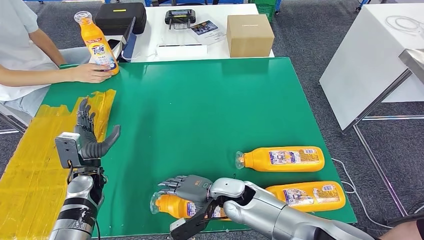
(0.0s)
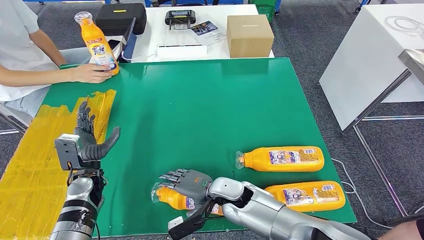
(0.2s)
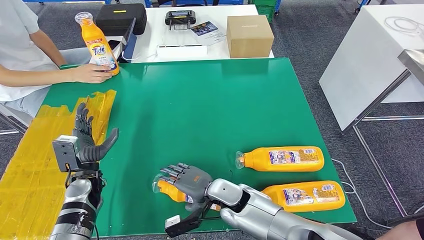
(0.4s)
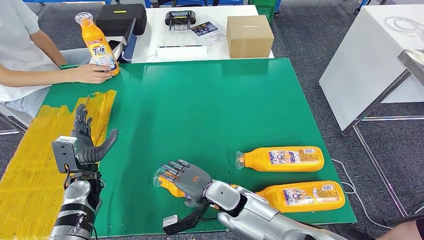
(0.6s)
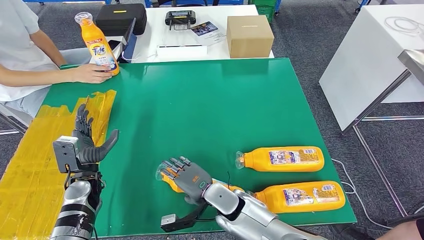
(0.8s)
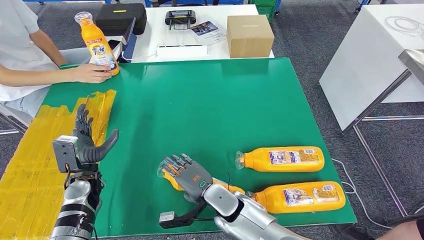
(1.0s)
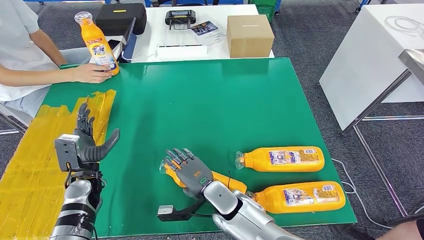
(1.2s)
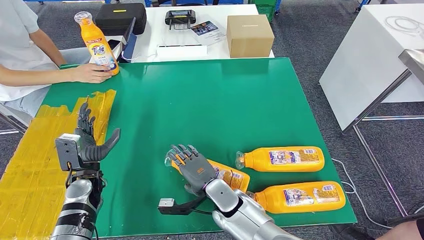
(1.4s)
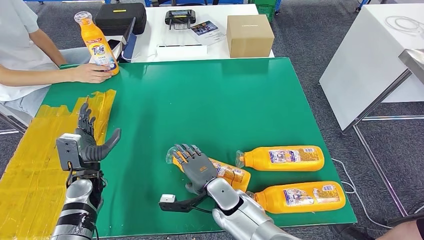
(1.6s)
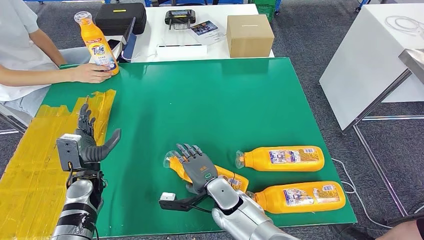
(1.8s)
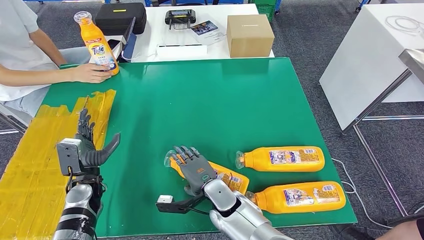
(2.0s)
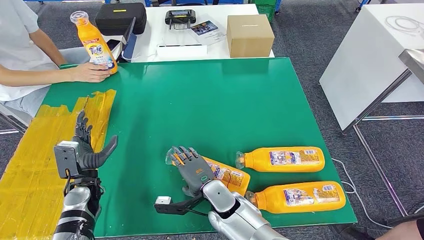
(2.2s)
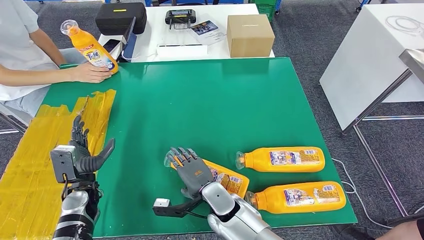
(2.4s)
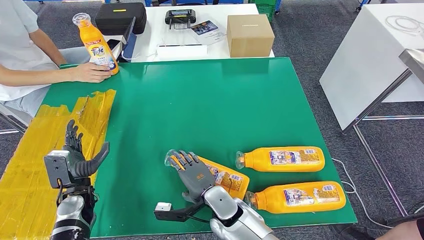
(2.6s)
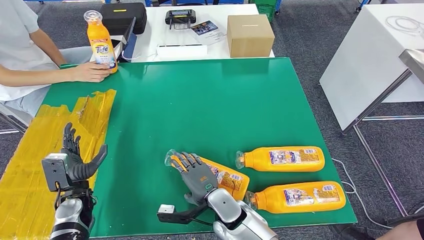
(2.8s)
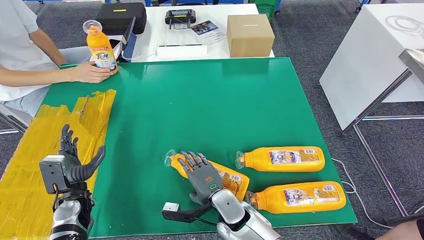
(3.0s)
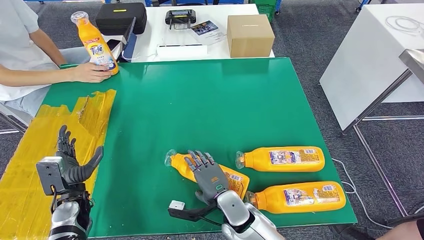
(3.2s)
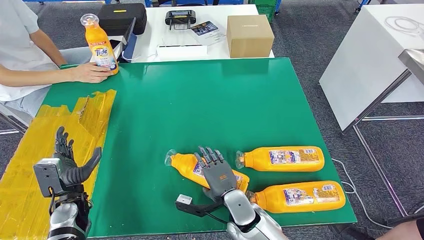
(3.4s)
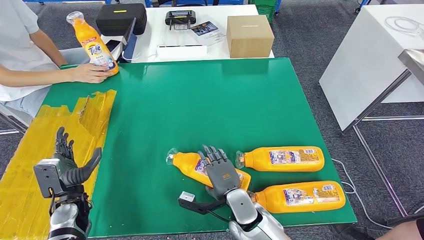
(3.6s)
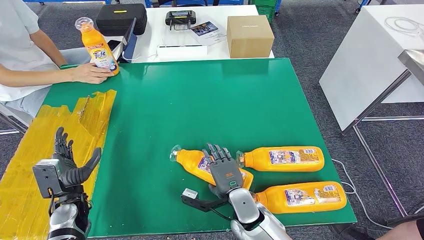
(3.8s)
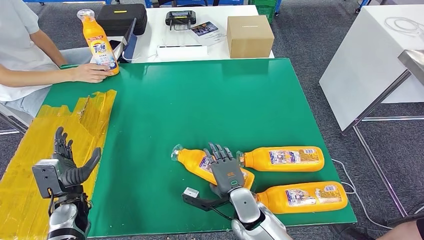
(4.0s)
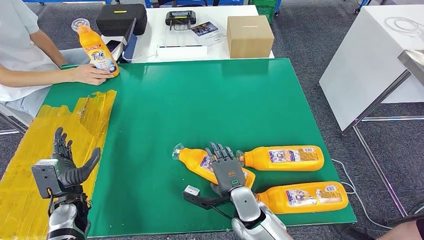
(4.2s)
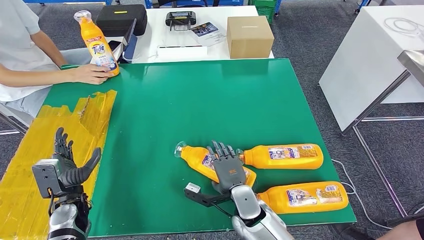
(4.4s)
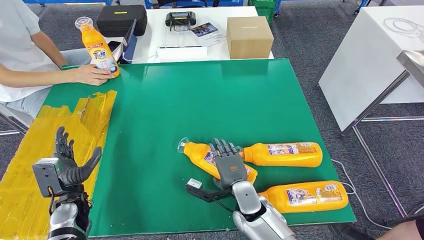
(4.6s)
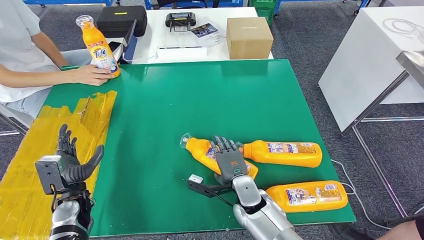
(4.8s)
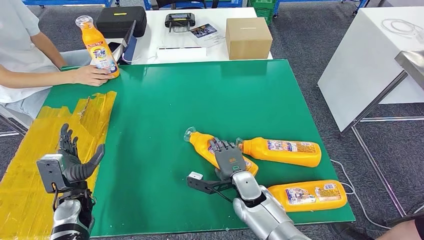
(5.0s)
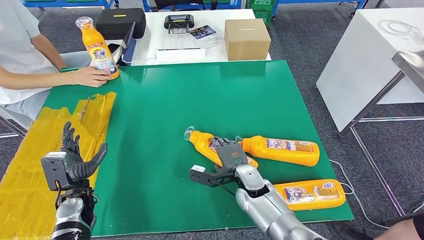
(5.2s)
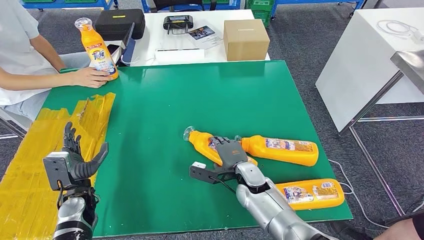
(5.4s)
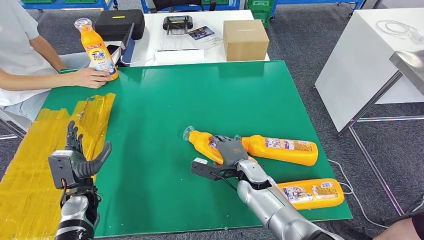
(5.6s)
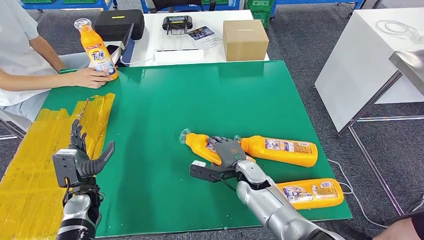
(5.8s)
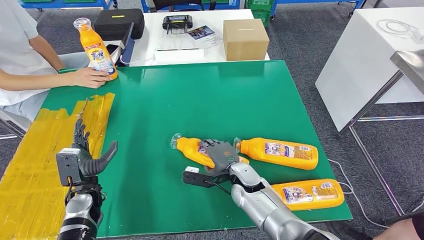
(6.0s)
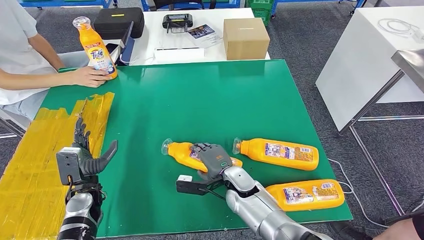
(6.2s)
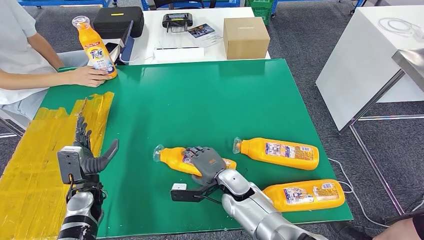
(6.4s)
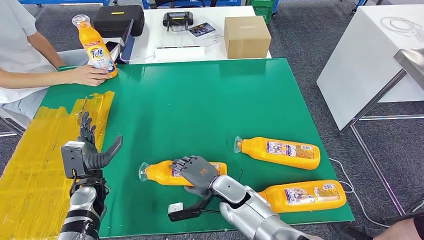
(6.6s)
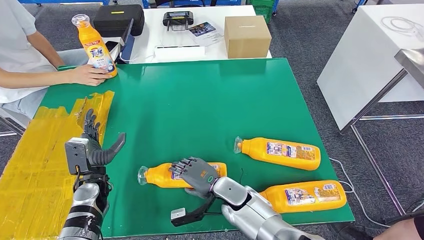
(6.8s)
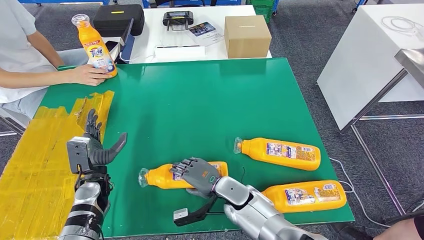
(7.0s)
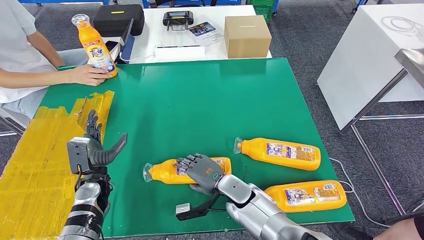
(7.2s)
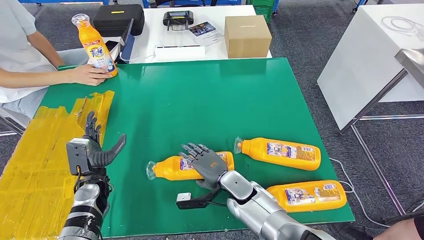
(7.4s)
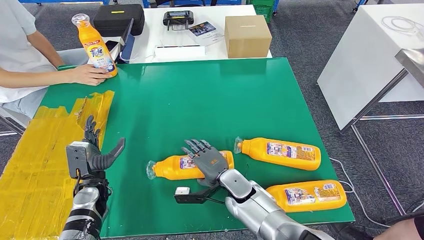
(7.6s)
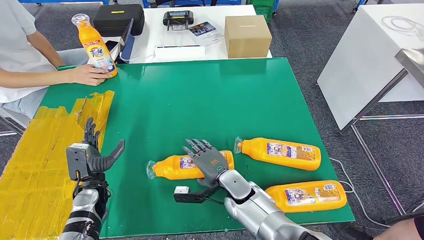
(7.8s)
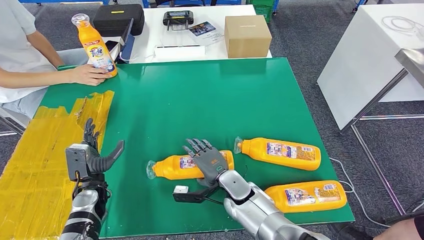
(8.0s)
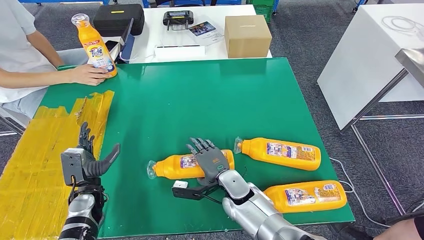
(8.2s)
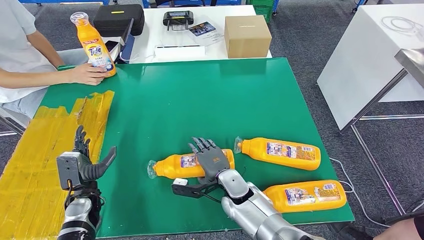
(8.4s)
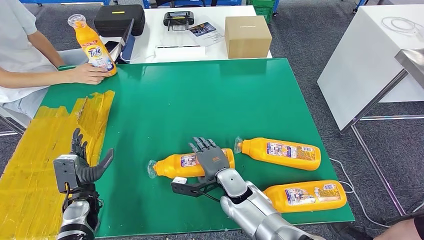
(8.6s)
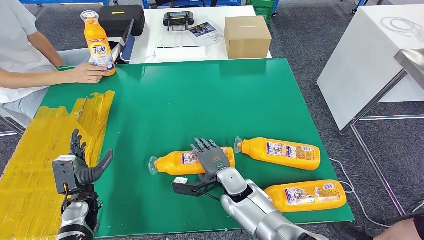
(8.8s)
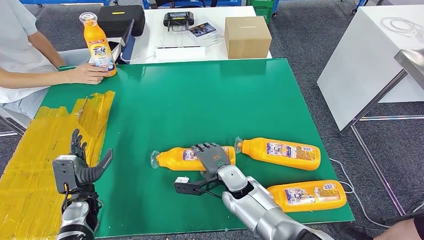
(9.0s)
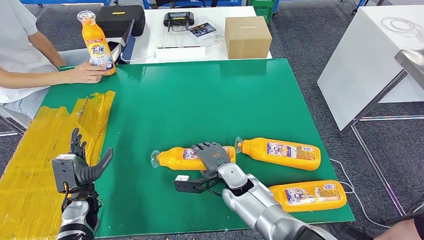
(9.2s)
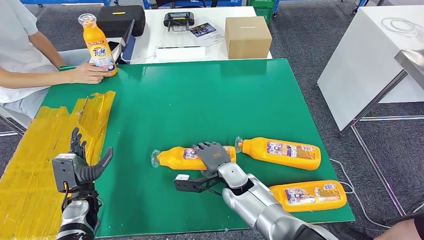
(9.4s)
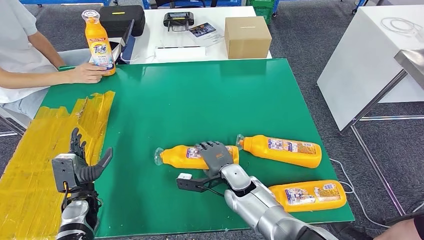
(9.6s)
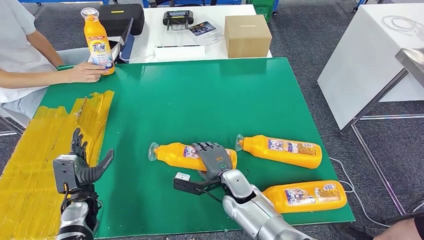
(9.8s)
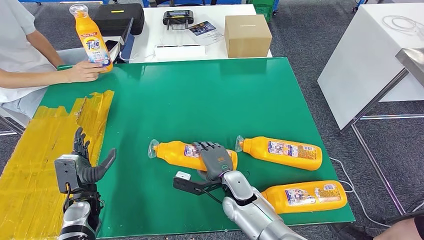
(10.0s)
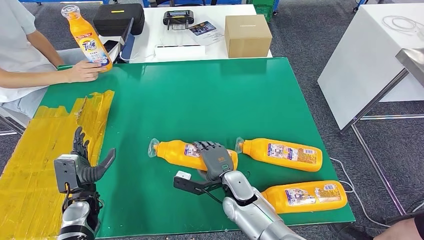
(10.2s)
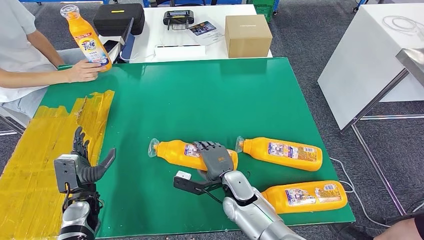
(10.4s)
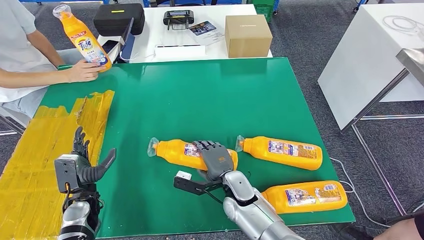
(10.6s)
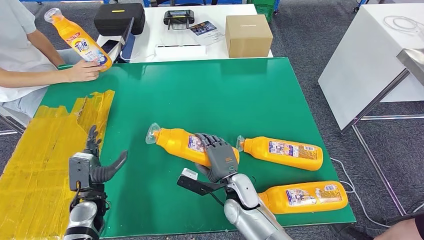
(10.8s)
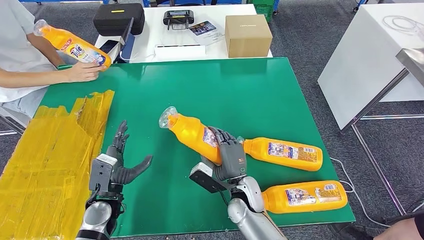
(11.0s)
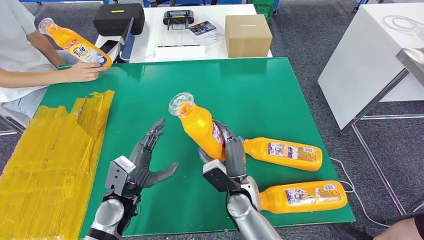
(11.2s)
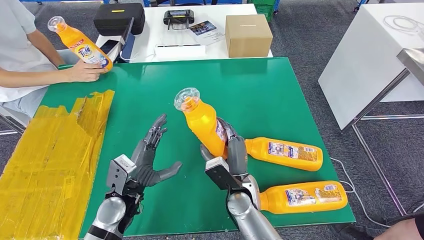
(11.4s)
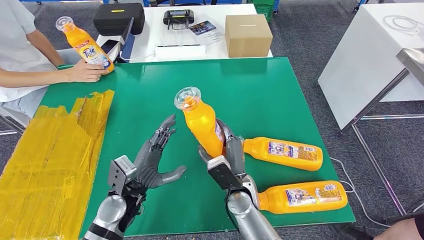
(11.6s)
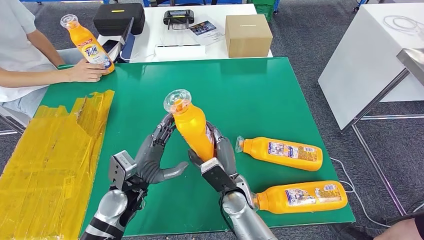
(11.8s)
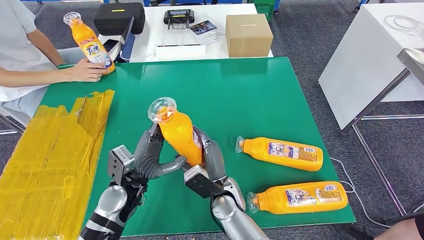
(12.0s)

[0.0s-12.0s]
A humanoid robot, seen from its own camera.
Step, 1.8s to 11.6s: Pick up the bottle from the table.
1.6s to 3.0s: The left hand moves about 5 cm.
3.0s to 4.4s: The right hand shifts about 5 cm to the right.
7.6s to 9.0s: The hands make only small movements.
10.4s to 12.0s: The left hand travels to the right and upward by approximately 15 cm.

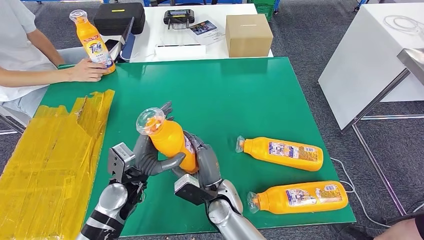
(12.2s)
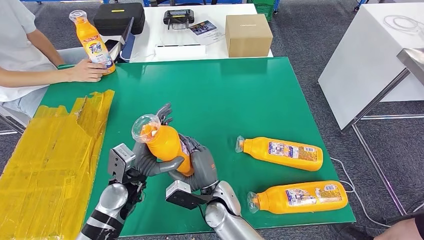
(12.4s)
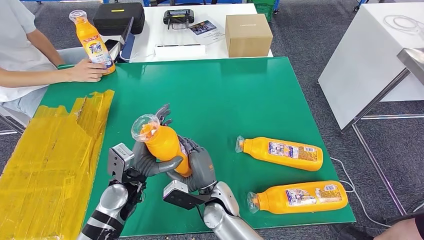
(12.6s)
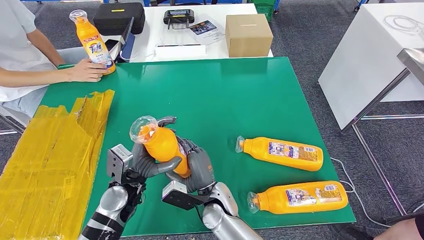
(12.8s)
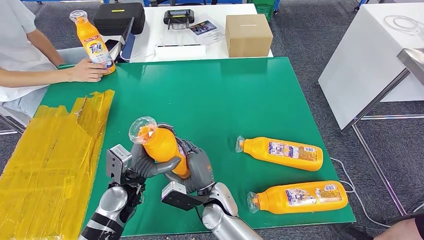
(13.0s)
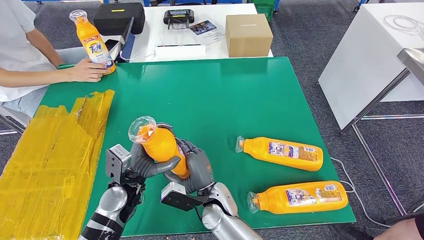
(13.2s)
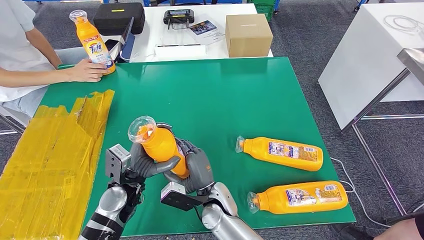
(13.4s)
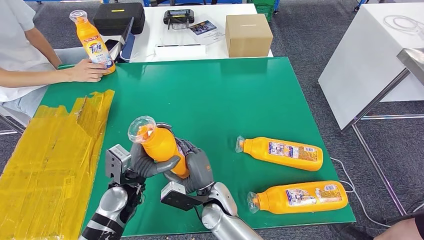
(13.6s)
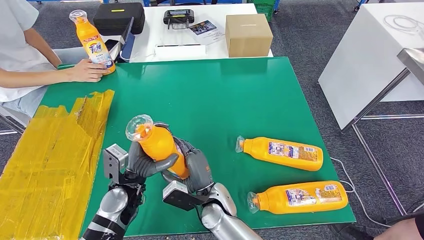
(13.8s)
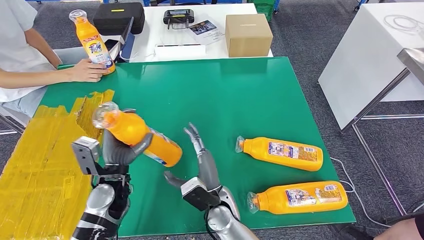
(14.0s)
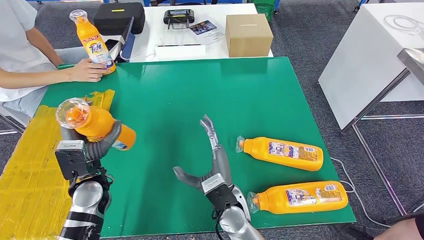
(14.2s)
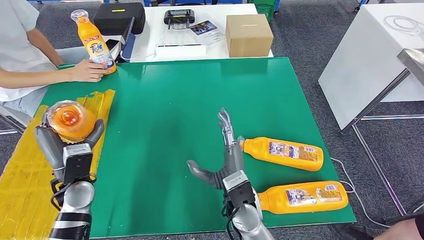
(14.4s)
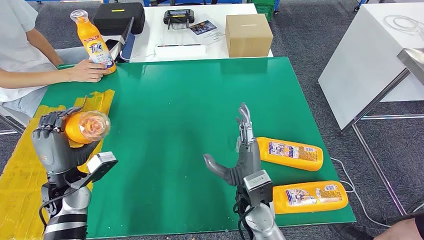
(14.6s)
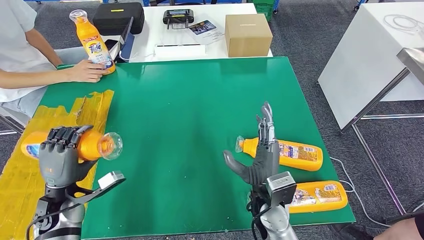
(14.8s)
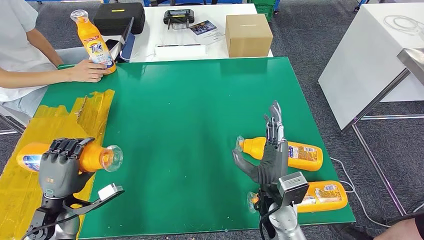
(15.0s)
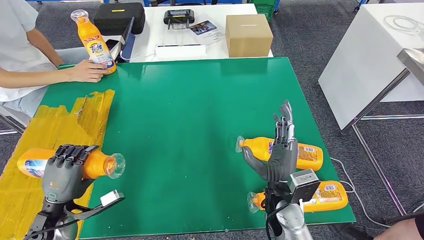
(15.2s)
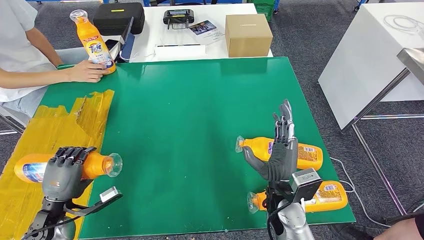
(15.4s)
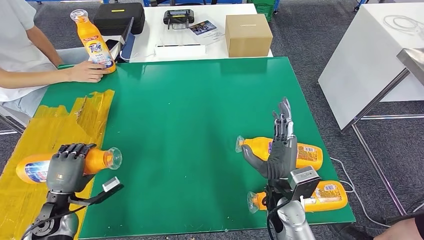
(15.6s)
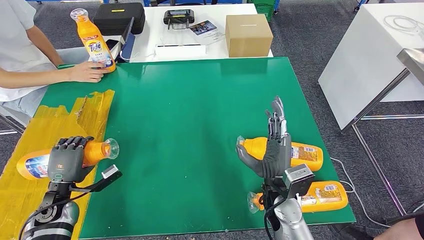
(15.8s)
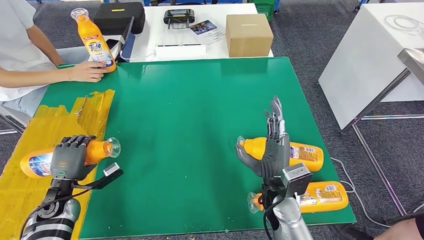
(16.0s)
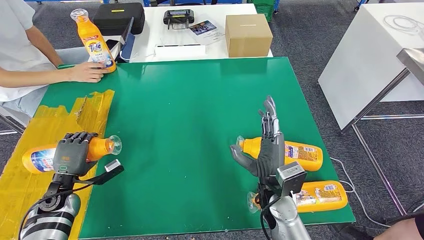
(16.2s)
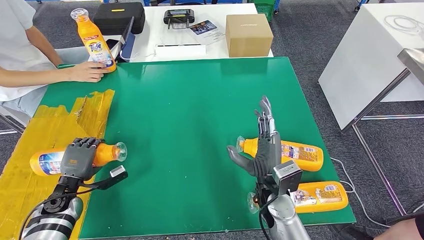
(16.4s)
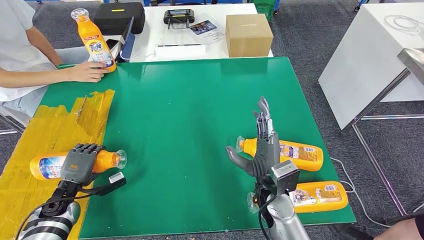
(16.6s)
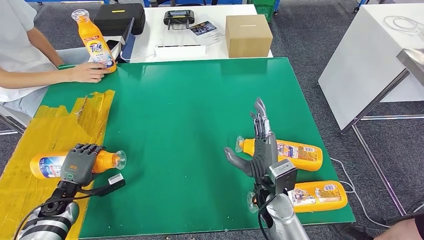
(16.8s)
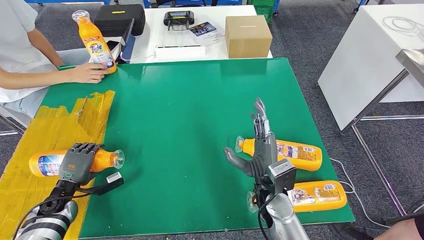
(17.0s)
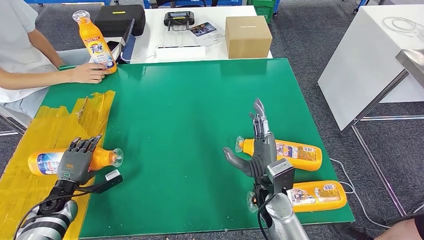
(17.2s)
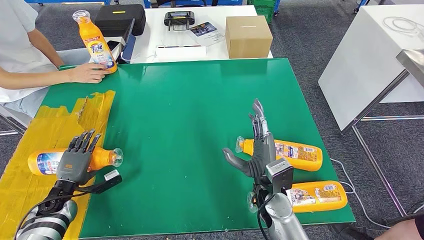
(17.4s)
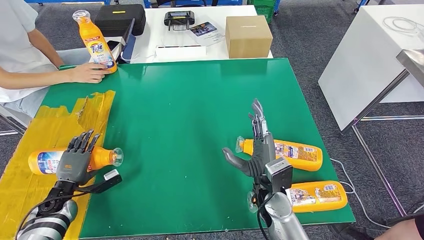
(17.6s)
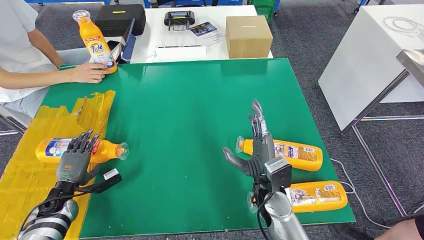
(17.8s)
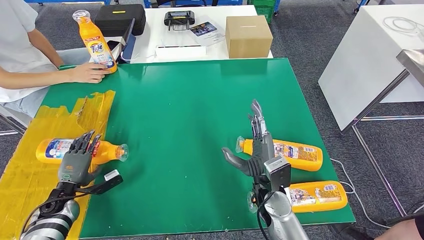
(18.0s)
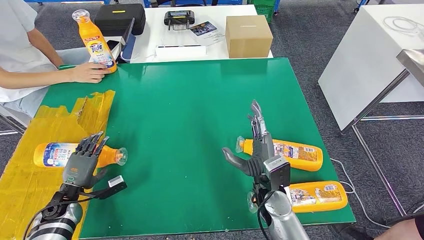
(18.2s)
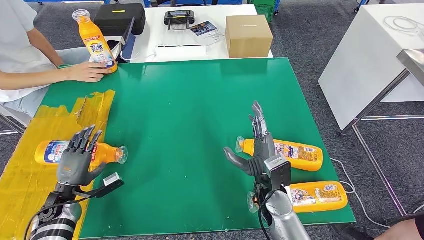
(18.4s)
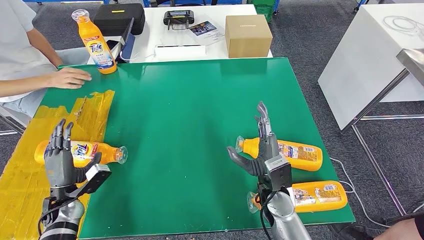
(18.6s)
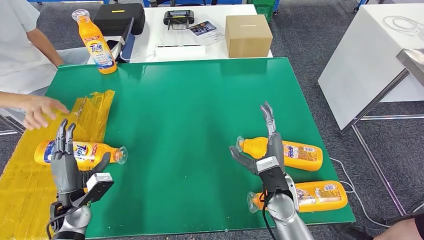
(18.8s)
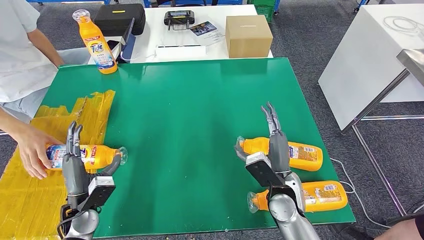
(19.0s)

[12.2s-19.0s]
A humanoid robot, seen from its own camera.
Step, 12.8s to 16.4s: Flip the bottle to face forward.
12.2s to 13.6s: The hands move only a little.
13.6s to 15.0s: The left hand moves to the left, approximately 15 cm. Meanwhile the right hand is displaced to the right and upward by approximately 15 cm.
15.0s to 16.2s: The left hand travels forward by about 5 cm.
16.2s to 17.6s: The hands make only small movements.
17.6s to 19.0s: The left hand goes approximately 10 cm to the right and upward.
